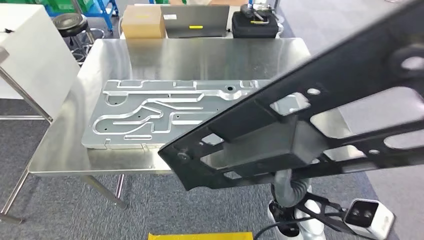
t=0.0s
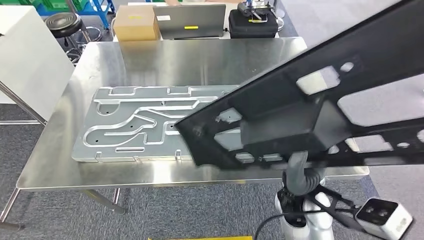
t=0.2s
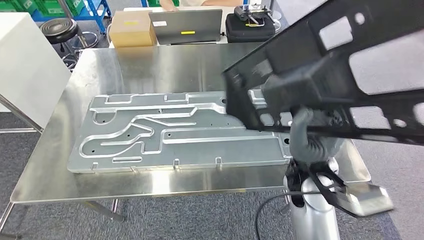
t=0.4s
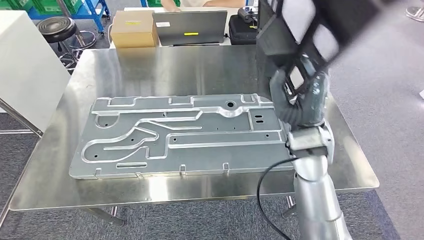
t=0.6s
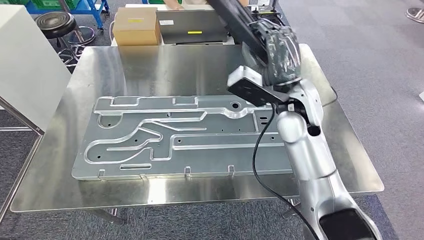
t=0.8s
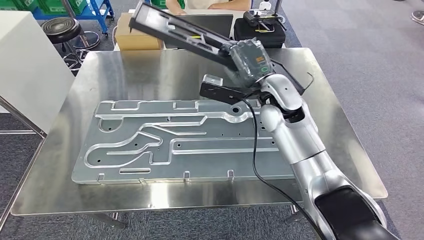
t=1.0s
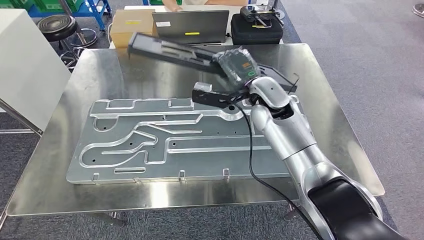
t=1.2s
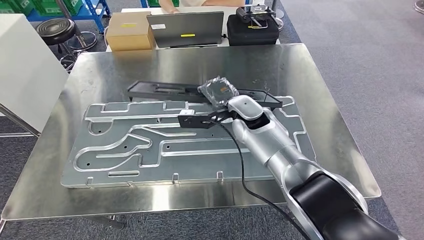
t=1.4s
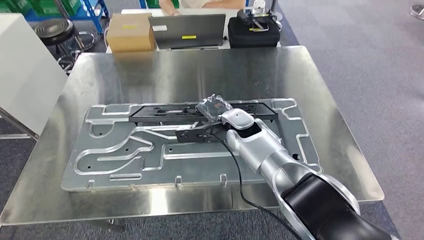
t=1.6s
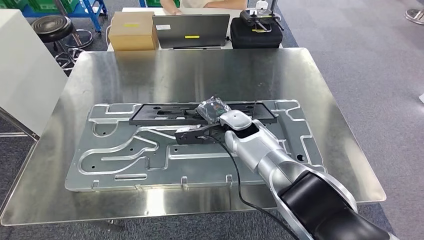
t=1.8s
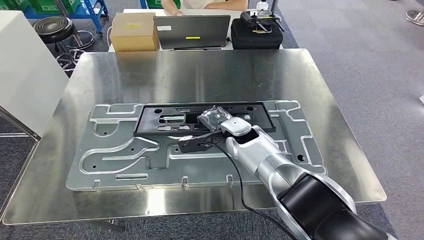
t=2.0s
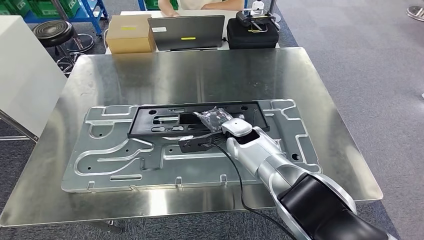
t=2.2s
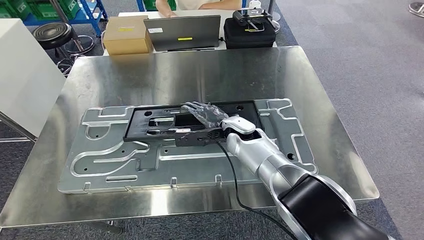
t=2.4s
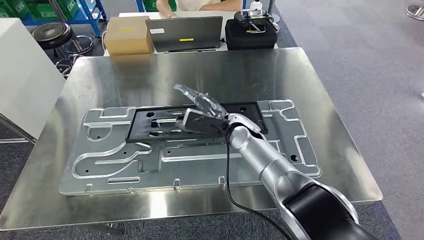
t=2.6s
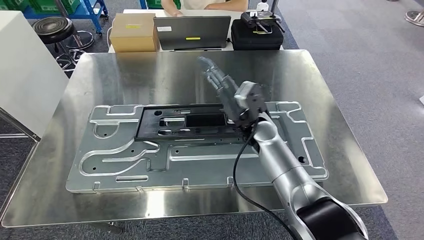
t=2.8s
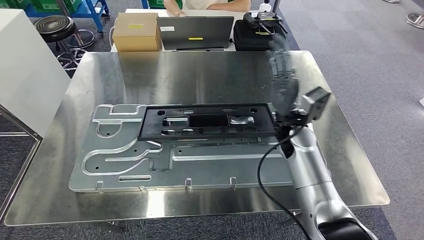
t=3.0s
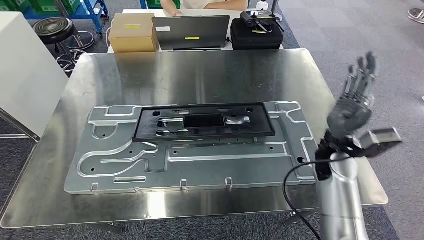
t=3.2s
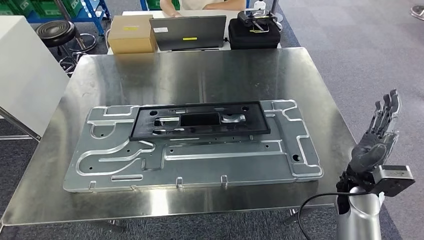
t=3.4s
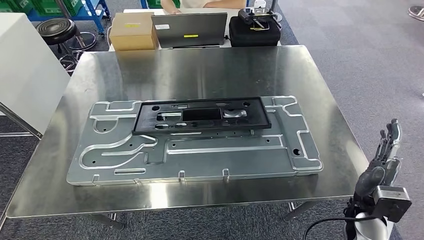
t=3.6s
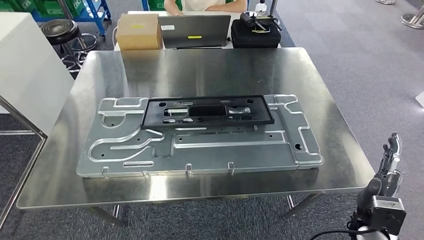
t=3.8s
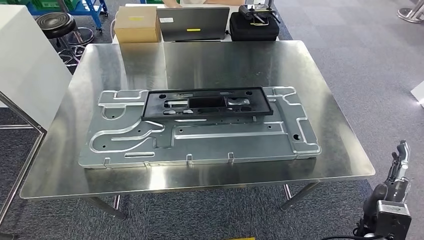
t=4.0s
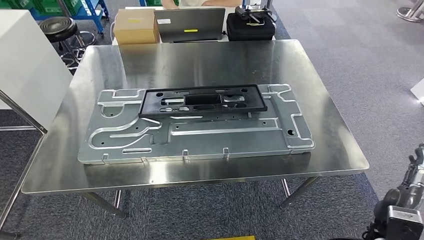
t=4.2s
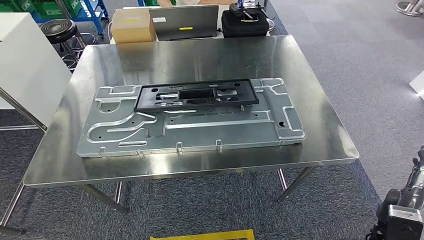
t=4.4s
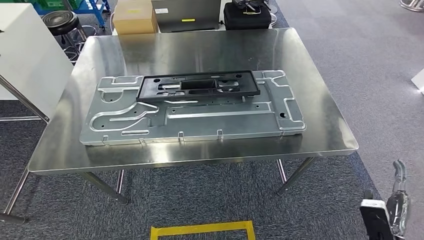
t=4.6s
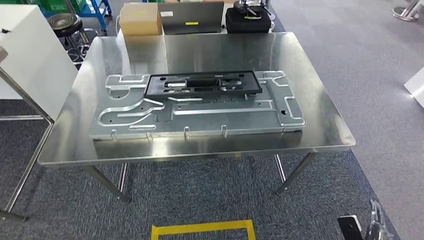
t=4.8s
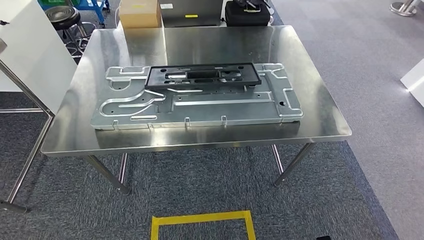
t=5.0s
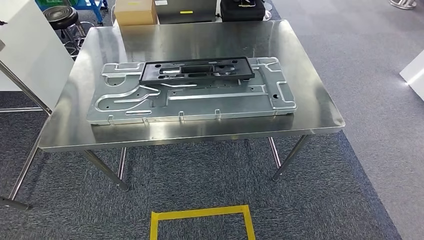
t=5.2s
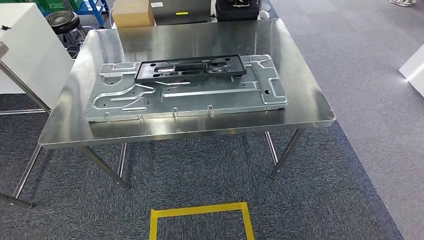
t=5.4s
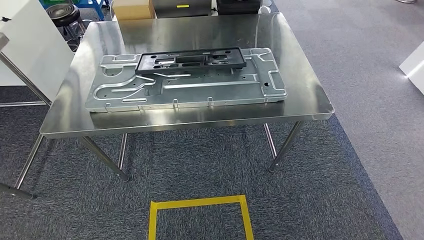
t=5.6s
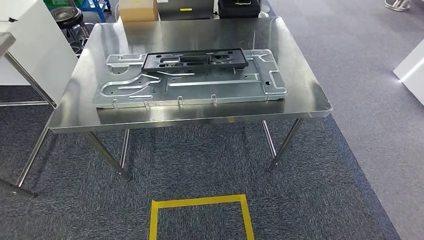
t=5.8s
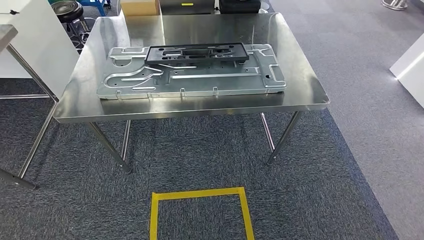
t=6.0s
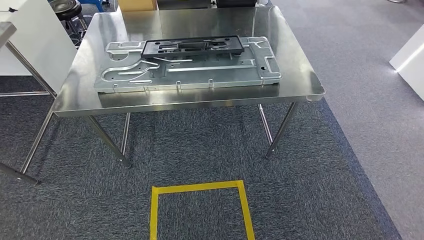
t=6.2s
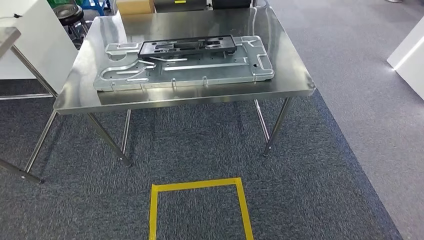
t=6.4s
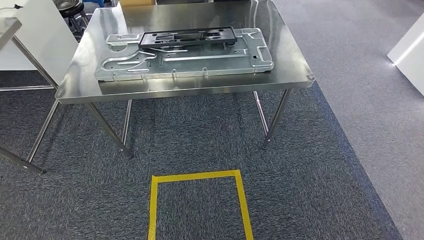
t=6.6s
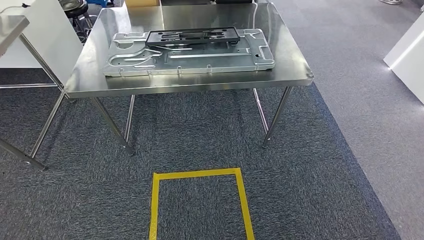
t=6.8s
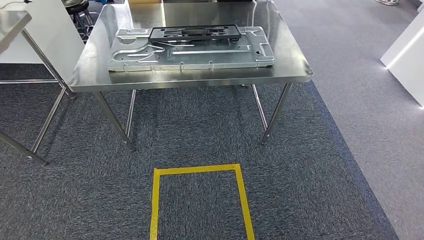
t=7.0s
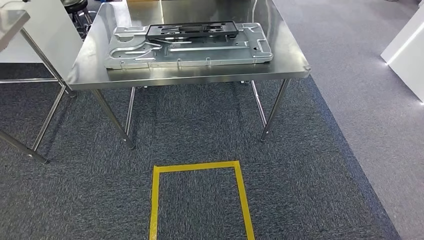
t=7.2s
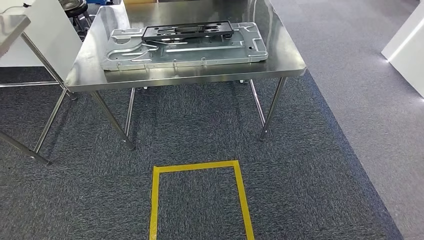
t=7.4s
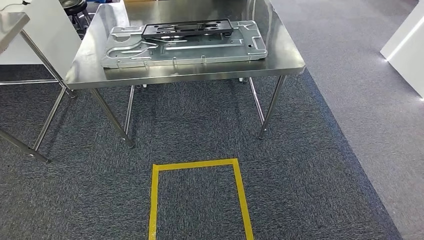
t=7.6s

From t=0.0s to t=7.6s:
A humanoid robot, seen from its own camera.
Step, from t=1.0s to t=4.8s: Insert the large material into the corresponding slot on the workbench.
Step, from t=5.6s to t=7.6s: Move to the initial position of the shelf.

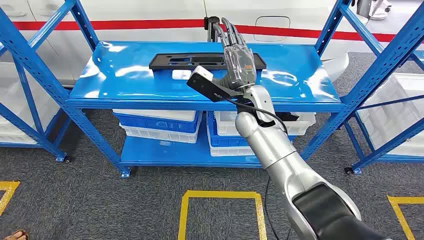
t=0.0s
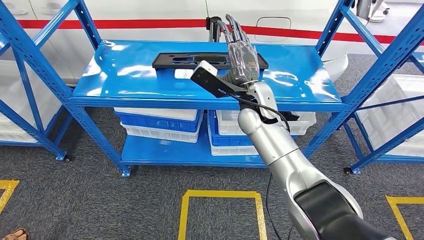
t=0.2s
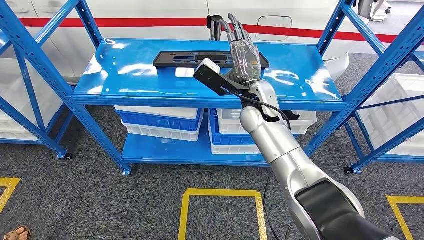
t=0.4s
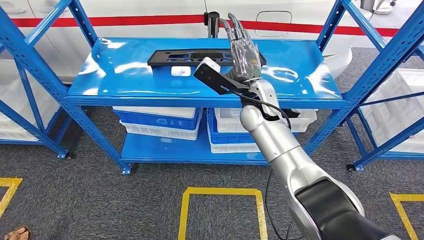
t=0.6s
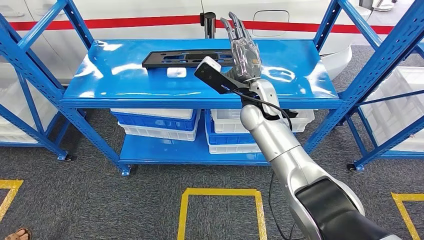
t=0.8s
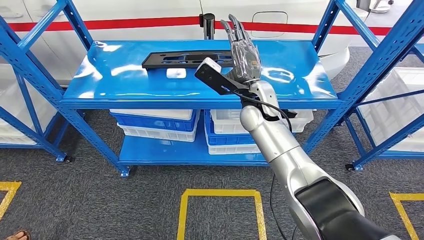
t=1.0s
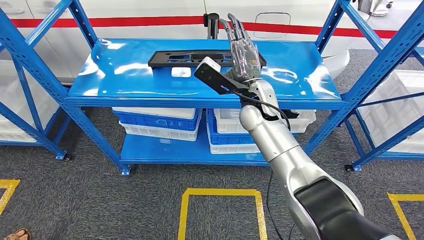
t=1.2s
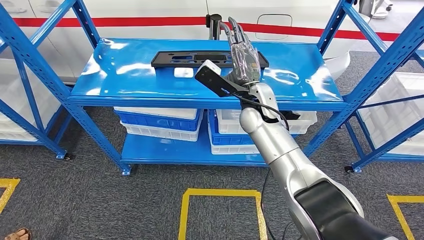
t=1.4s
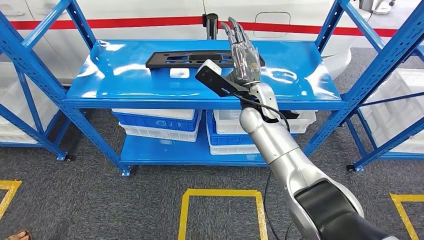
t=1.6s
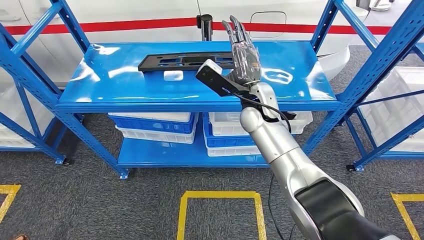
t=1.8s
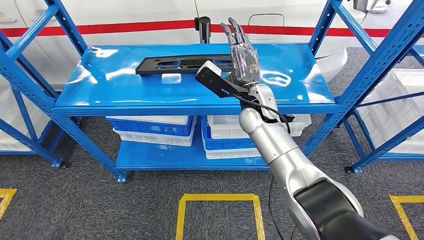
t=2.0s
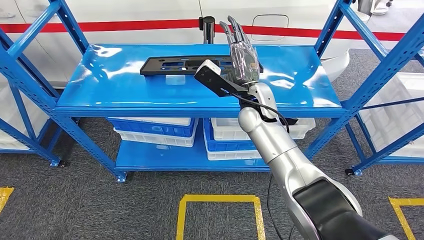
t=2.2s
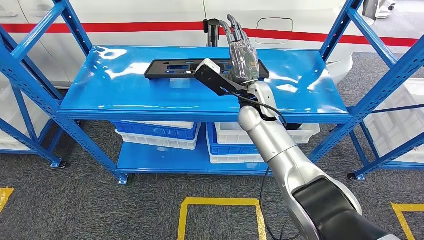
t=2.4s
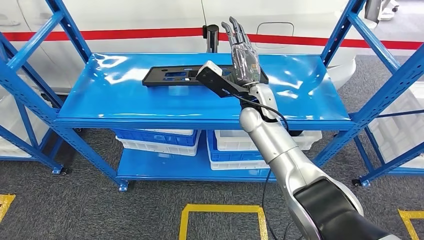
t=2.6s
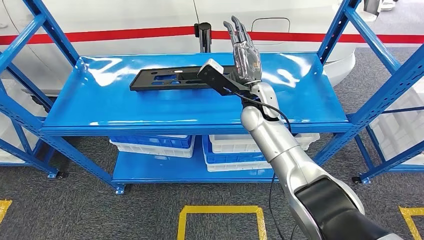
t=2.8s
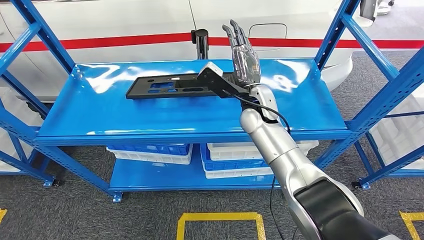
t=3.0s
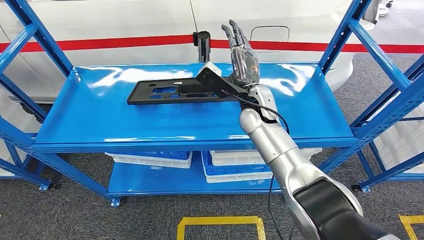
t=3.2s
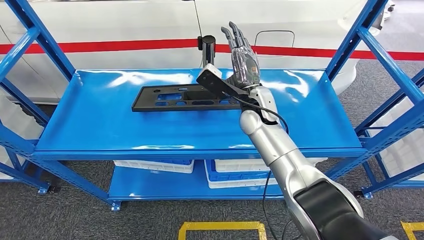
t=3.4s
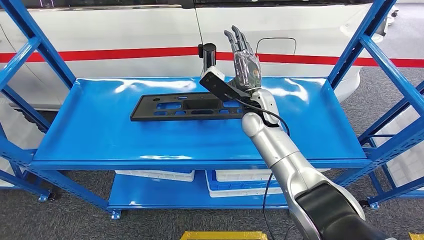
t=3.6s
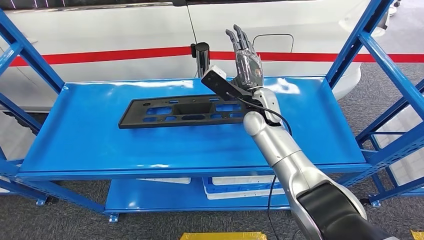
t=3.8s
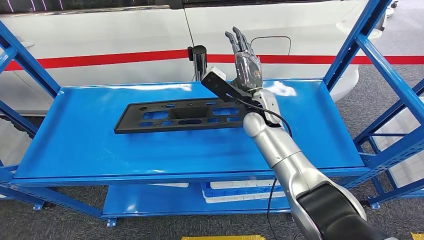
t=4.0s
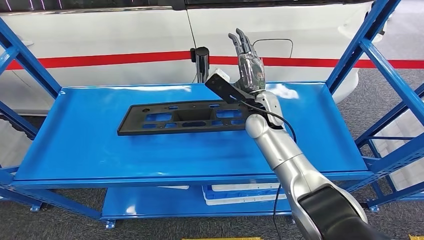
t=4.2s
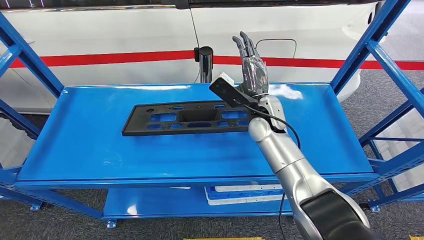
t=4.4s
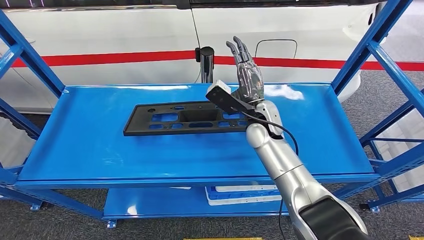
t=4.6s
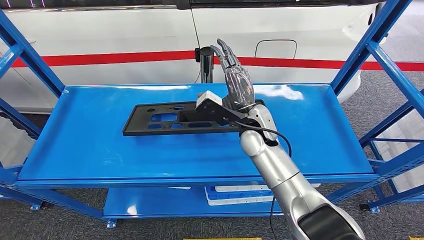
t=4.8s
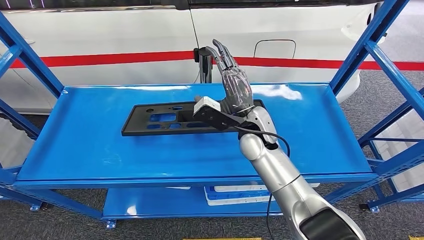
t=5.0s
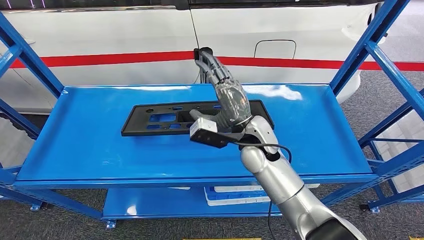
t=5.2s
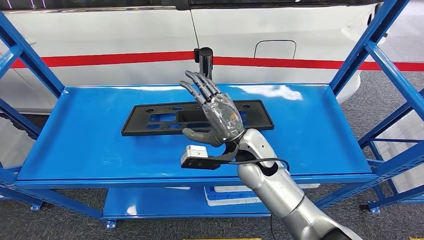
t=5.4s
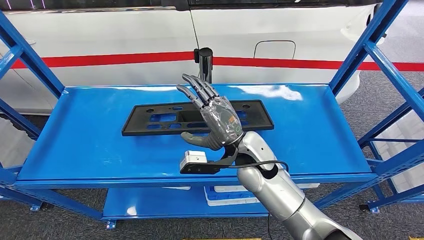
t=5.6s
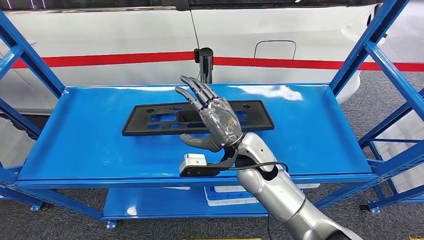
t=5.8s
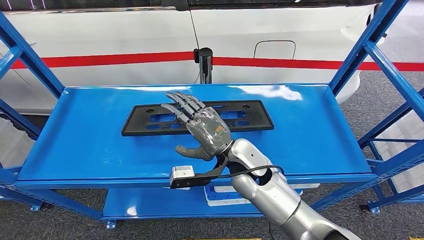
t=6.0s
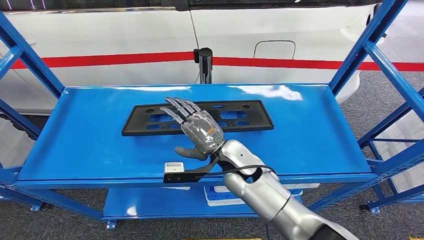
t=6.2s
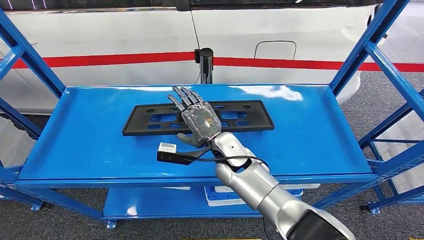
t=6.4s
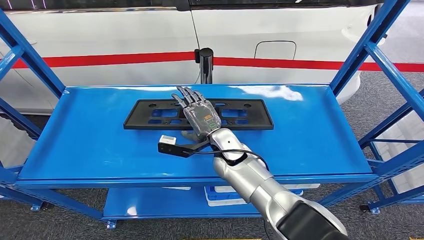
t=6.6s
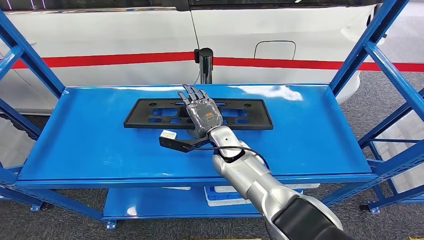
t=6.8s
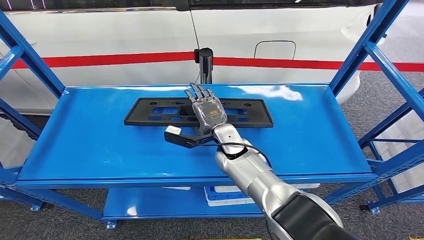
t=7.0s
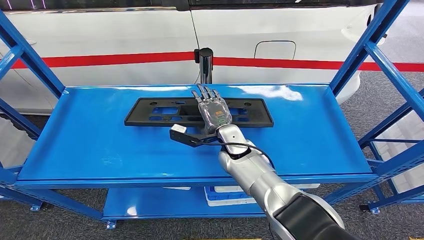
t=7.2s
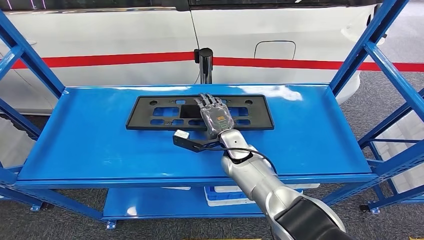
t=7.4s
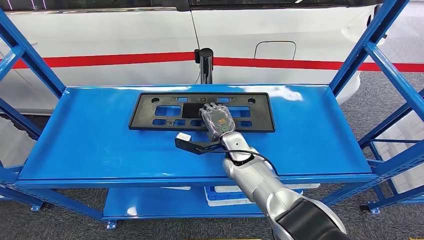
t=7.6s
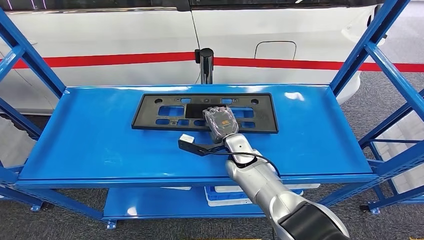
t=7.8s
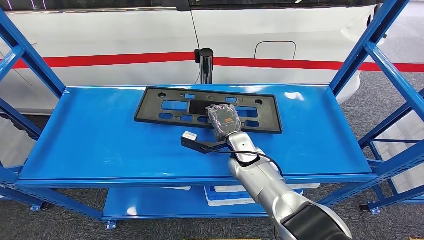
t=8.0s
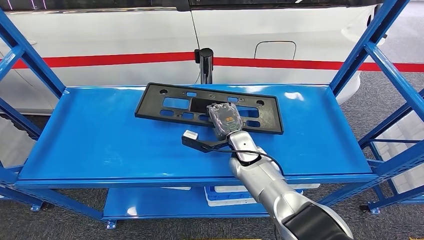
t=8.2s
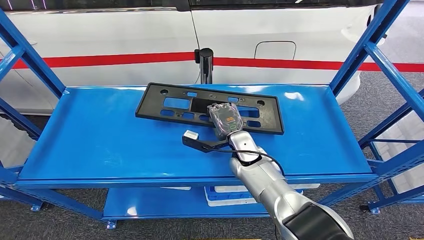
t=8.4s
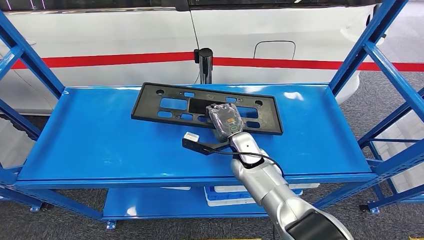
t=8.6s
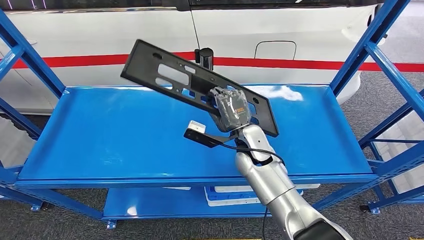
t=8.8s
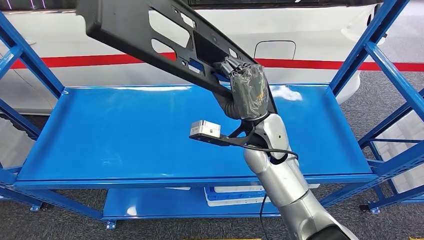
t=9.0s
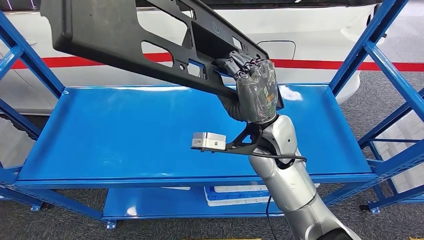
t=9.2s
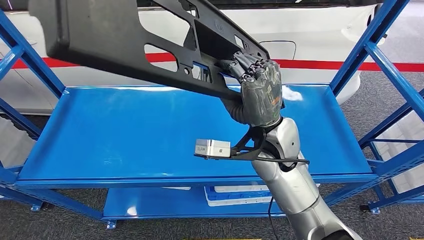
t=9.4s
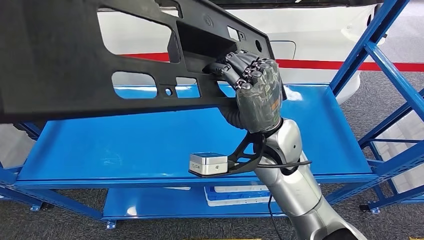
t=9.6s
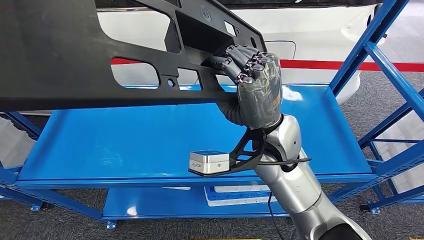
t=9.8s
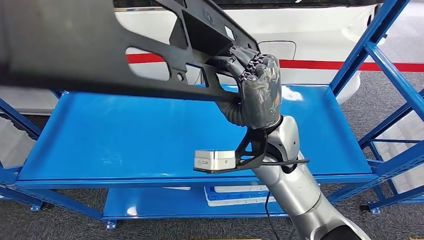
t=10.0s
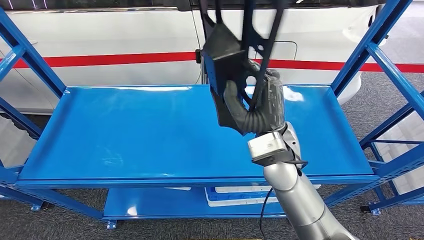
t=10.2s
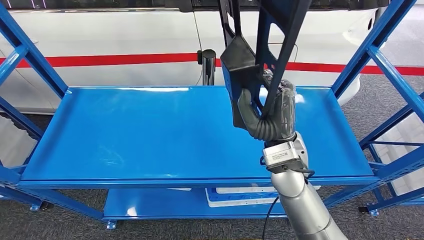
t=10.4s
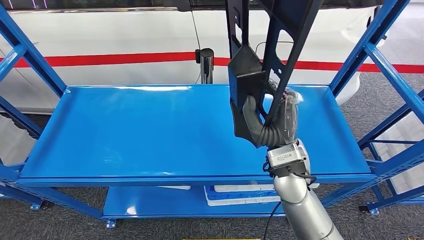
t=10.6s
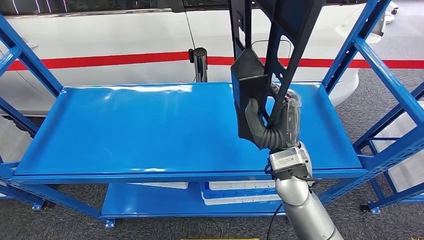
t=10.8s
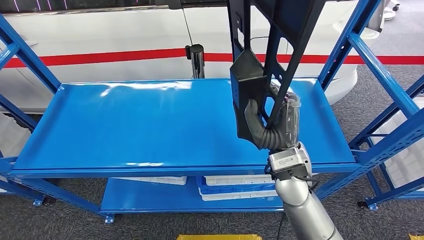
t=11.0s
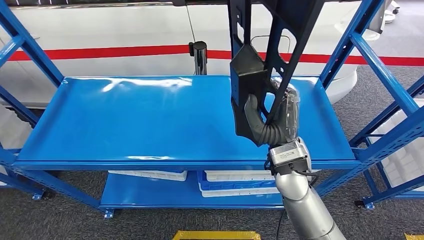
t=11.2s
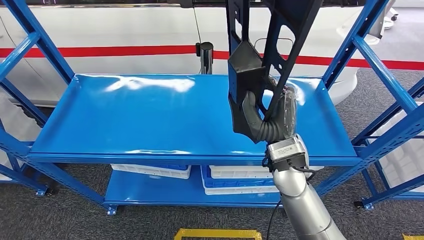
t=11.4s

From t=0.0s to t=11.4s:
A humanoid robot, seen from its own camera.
From t=5.6s to t=7.2s: The right hand shifts approximately 10 cm forward and downward.
